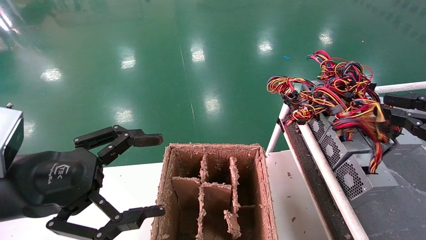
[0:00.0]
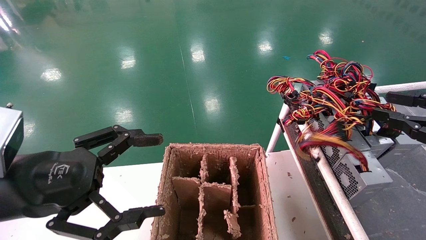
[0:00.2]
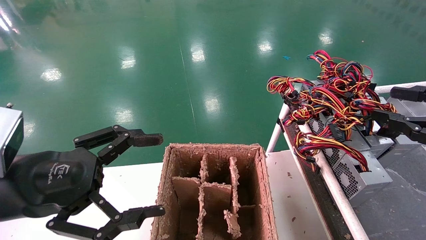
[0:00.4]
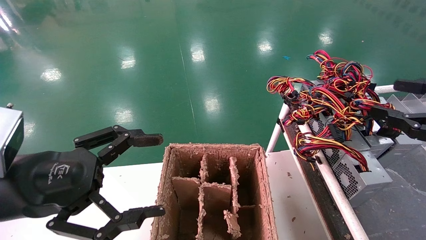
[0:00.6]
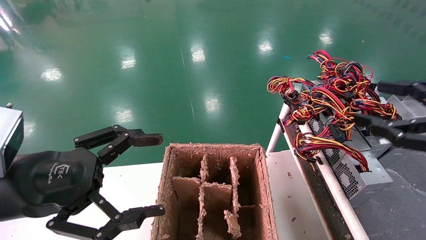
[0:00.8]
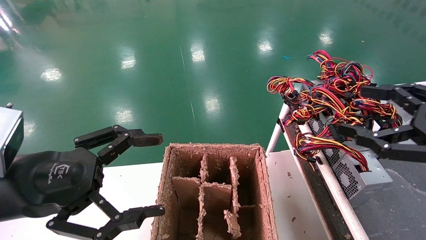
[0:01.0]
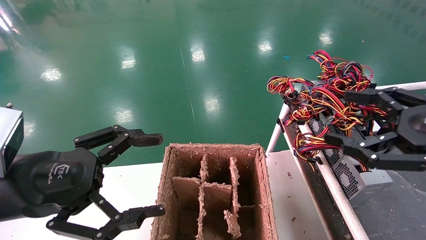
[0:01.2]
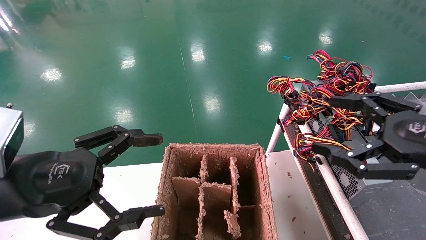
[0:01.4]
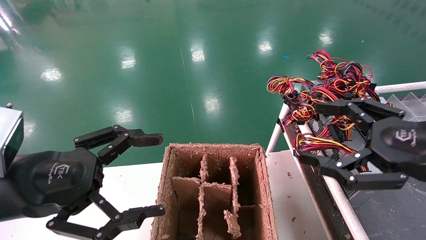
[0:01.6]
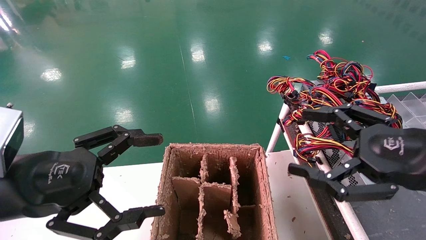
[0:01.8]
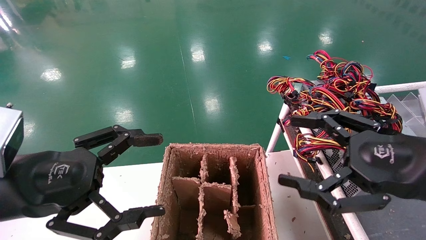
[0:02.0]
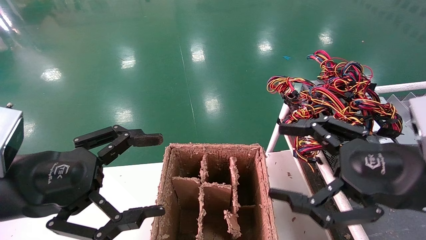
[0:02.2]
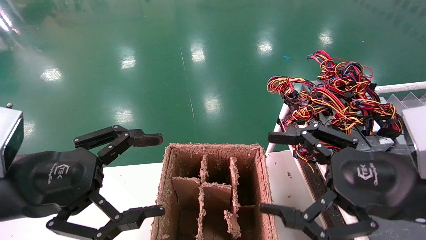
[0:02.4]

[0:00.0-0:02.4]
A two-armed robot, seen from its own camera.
Step, 0:00.0 to 0:02.4: Place the power supply on the operating table.
0:00.0 to 0:01.2: The right gripper goes roughly 5 cm to the left, and opens.
0:01.2 to 0:02.4: The right gripper goes approximately 10 cm to the left.

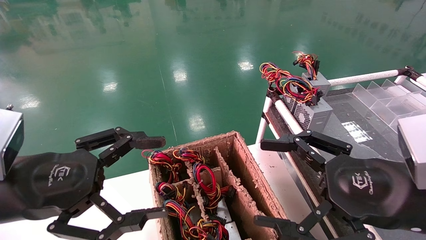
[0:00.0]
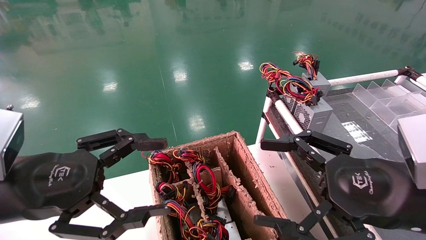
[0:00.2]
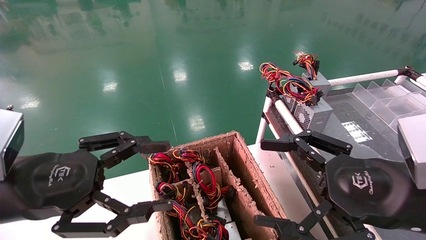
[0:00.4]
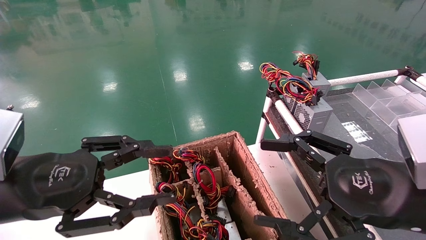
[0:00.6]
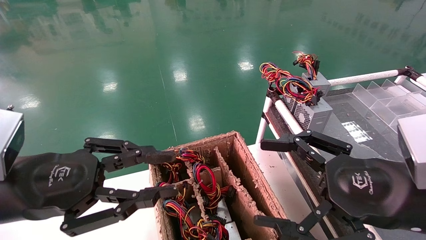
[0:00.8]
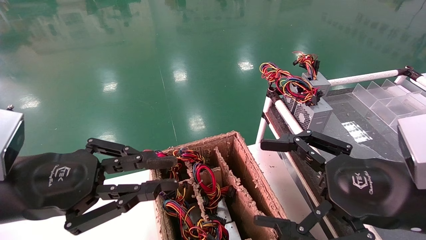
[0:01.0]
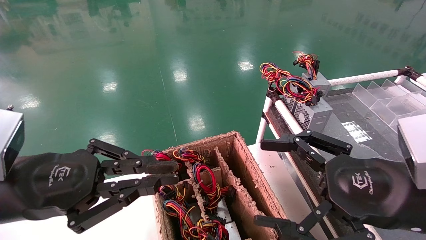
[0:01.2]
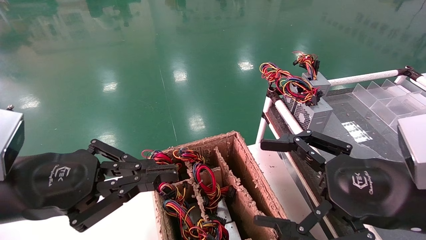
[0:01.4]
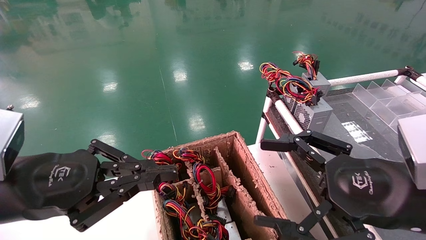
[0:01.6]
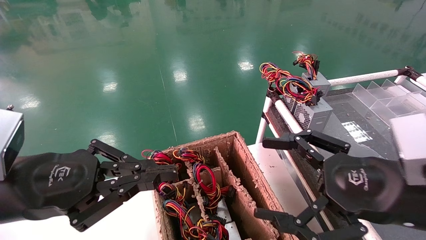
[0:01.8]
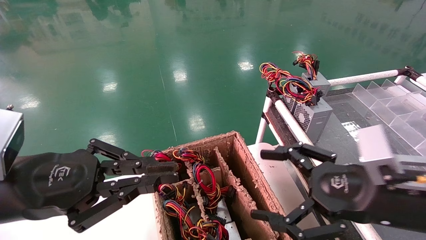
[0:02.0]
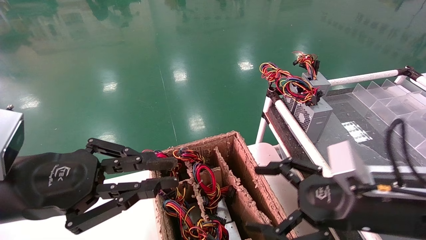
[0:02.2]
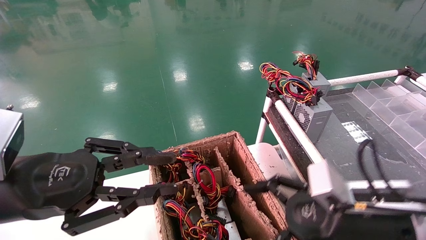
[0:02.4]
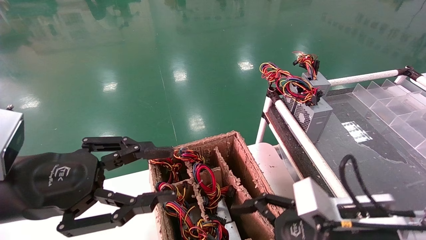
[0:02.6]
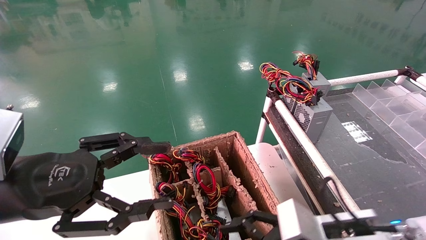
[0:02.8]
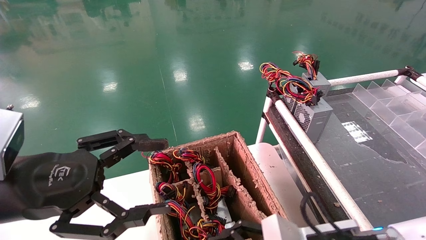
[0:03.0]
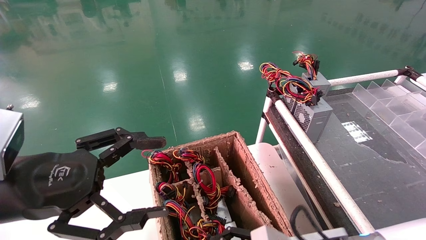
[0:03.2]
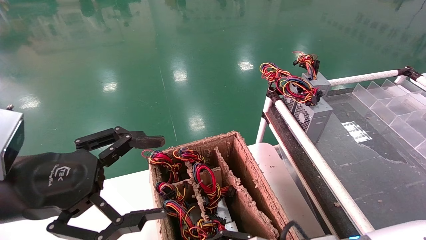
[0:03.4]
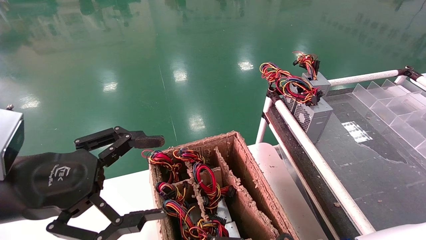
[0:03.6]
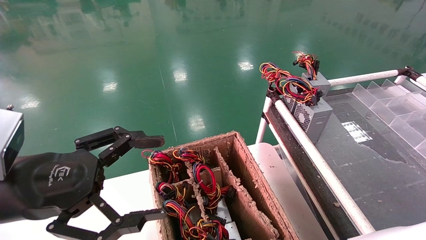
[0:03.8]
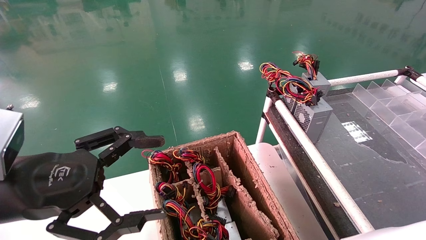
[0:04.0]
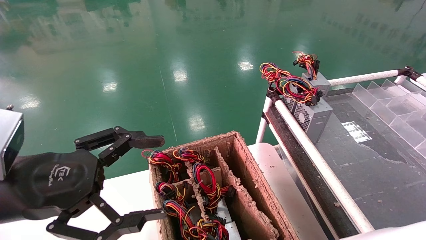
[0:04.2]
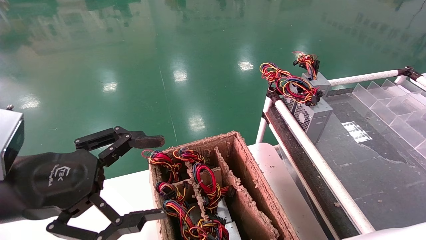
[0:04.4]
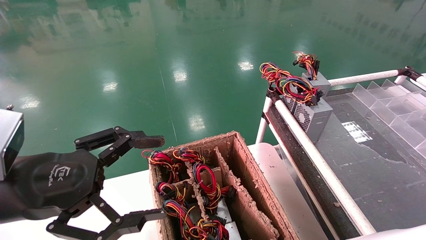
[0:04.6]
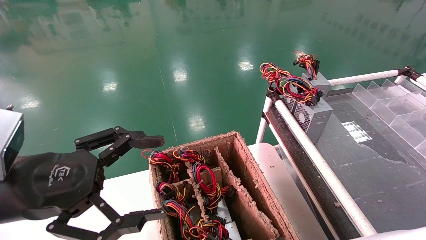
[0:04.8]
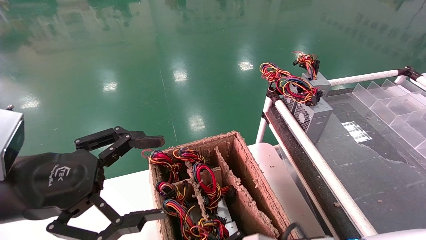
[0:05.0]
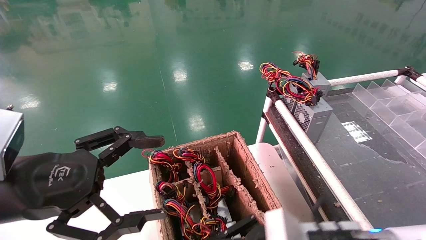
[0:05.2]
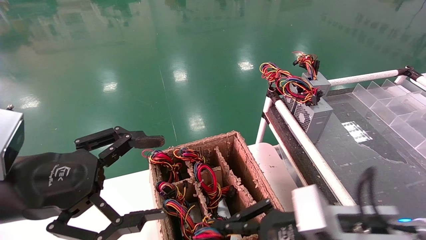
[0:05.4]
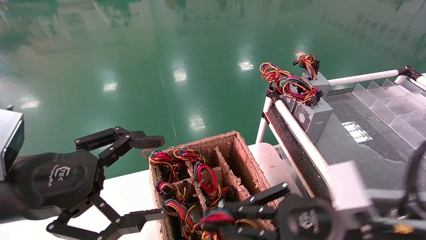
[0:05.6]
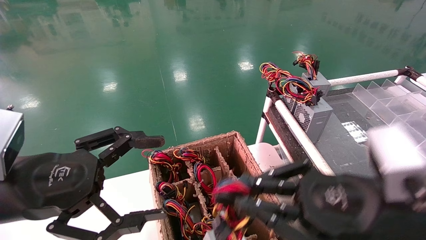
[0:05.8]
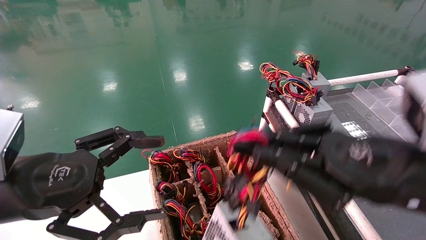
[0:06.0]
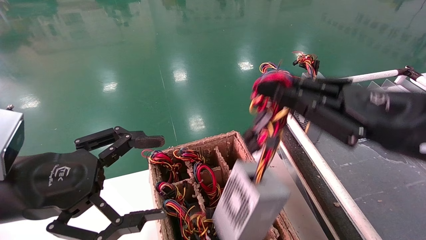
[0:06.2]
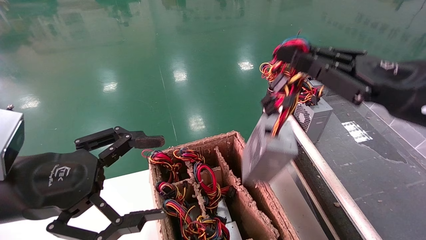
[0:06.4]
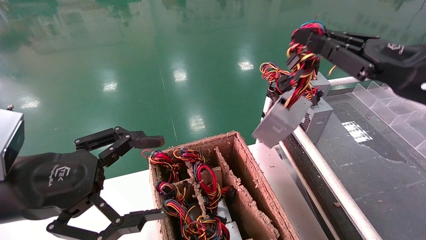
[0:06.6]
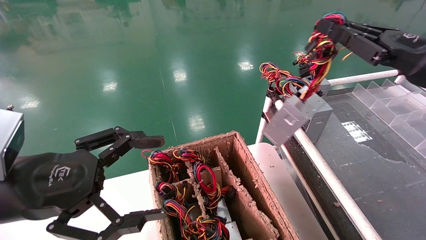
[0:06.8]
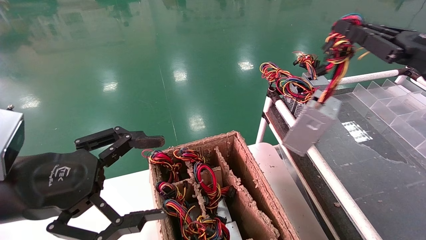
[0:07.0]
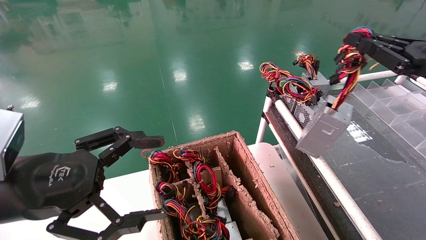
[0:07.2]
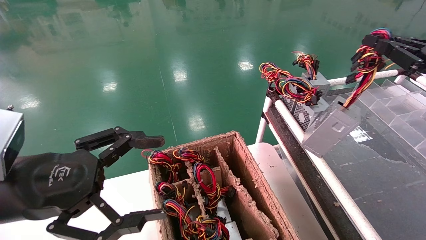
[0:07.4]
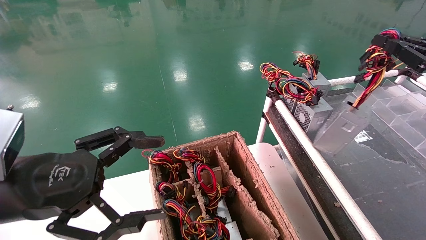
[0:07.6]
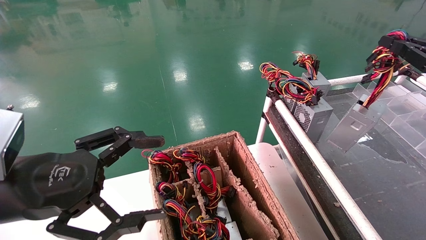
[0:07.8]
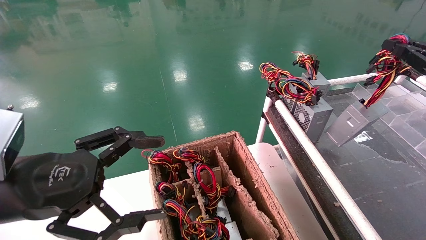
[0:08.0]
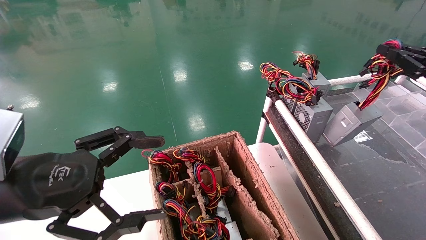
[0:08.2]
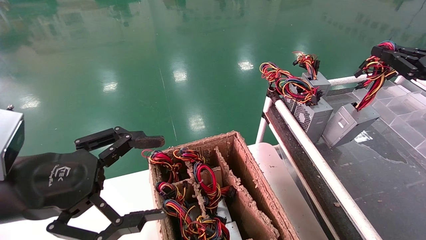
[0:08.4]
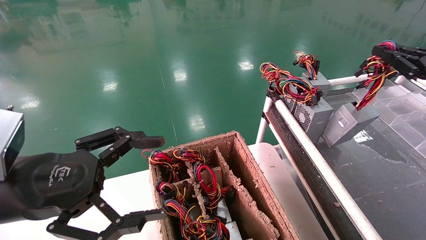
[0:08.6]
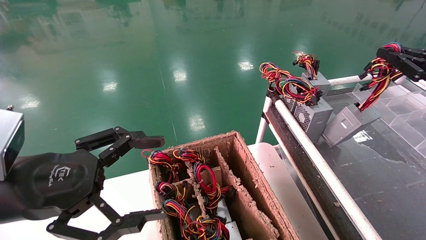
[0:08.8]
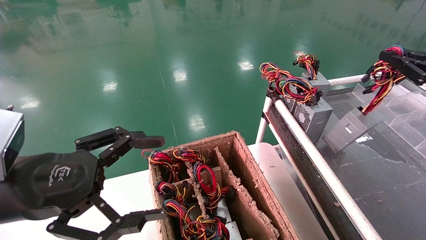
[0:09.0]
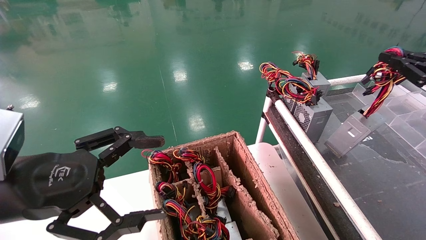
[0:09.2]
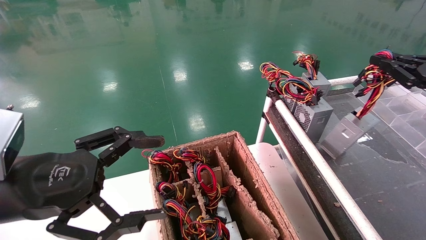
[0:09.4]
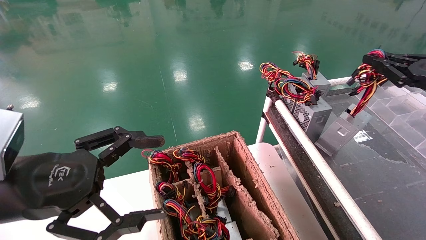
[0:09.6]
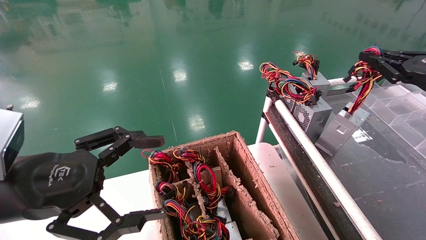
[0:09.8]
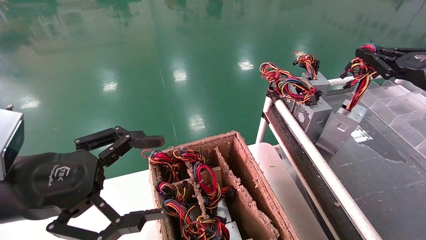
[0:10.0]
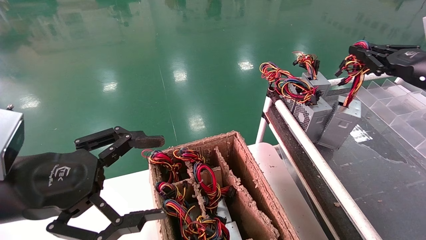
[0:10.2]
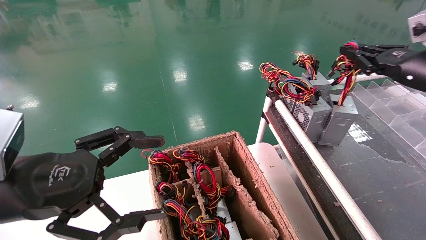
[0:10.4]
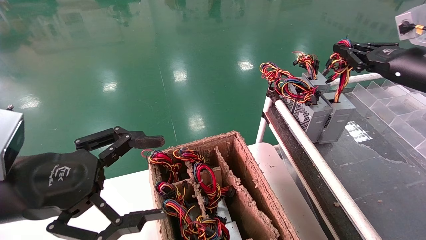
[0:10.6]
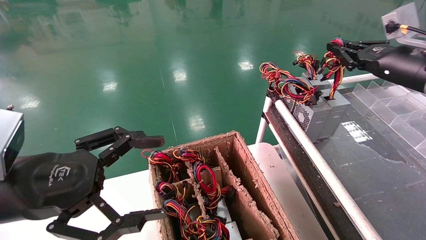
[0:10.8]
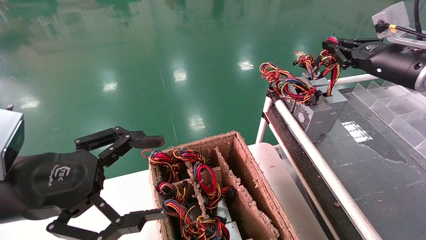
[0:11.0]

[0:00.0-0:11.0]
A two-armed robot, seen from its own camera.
Step, 0:01.6 to 0:04.6: Grab and lift the power supply from the large box.
0:00.0 to 0:01.6: The left gripper closes up.
0:01.6 to 0:03.2: The left gripper opens up; the right gripper is displaced downward and to the left by roughly 15 cm.
0:03.2 to 0:04.8: The right gripper closes.
0:04.8 to 0:06.2: The right gripper travels upward and to the right by approximately 25 cm.
0:06.2 to 0:07.8: The right gripper heads to the right and forward, covering about 20 cm.
0:07.8 to 0:09.4: The grippers stay close to where they were, moving slightly.
0:09.4 to 0:11.0: The right gripper shifts approximately 10 cm to the left and forward.

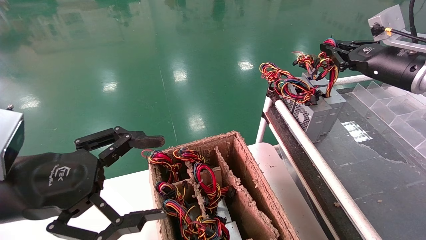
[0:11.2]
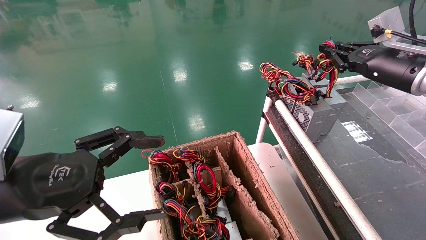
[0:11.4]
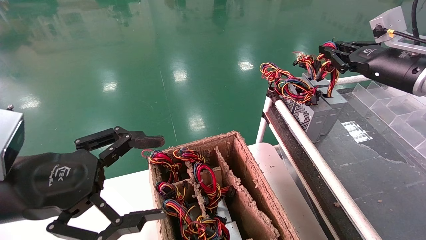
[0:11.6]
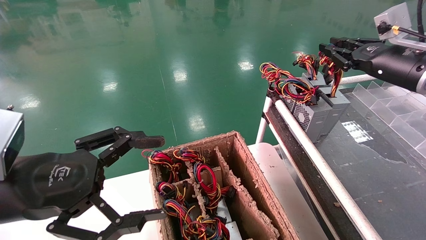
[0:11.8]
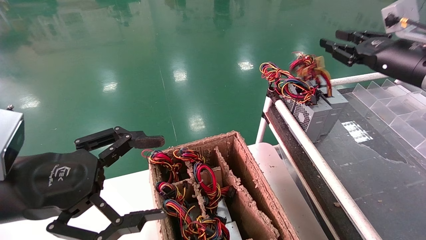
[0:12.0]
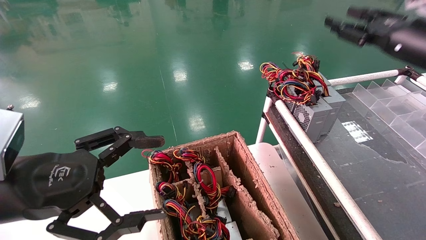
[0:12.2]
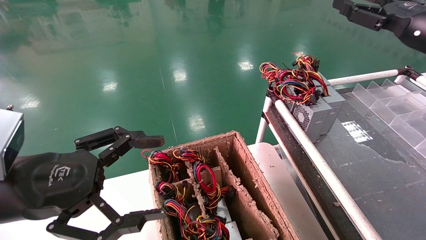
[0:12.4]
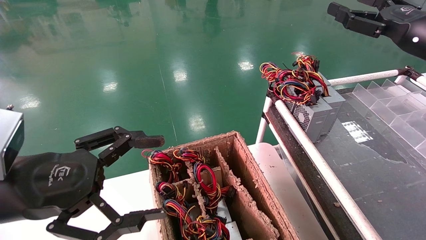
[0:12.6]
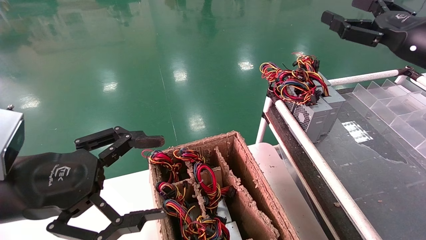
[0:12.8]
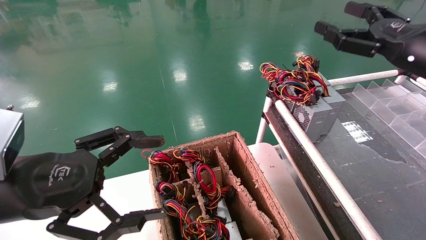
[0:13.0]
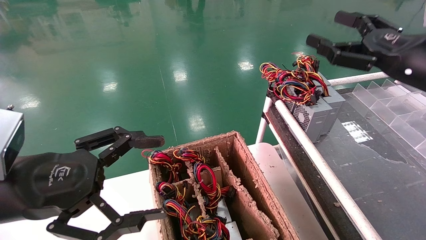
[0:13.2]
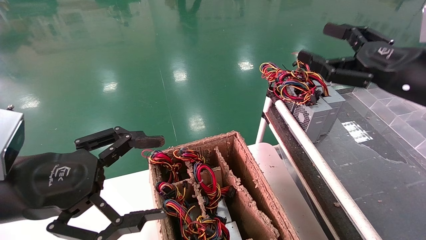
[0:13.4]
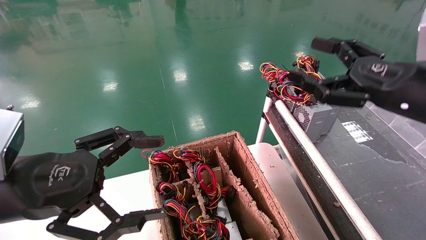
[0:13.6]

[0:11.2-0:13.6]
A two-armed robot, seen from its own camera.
0:11.2 to 0:12.4: The right gripper moves approximately 5 cm, and opens.
0:12.4 to 0:13.6: The right gripper heads backward, downward and to the left, covering about 10 cm, and opens its fingers.
